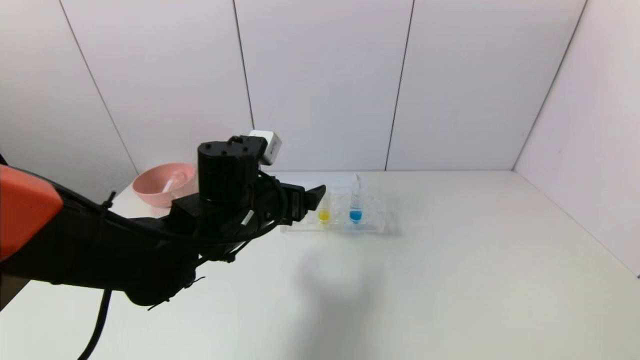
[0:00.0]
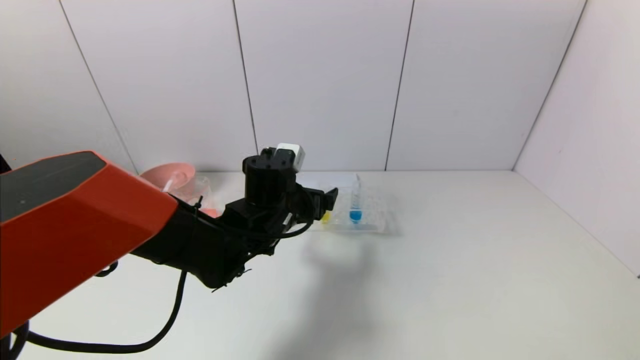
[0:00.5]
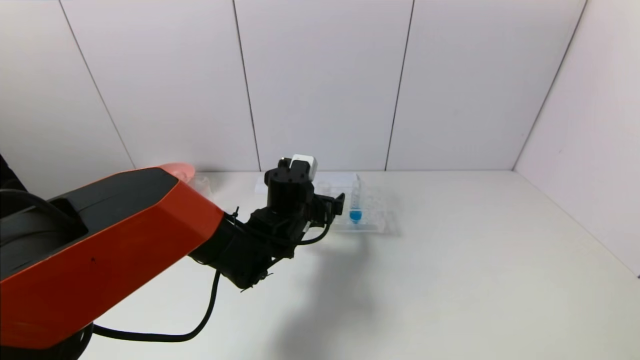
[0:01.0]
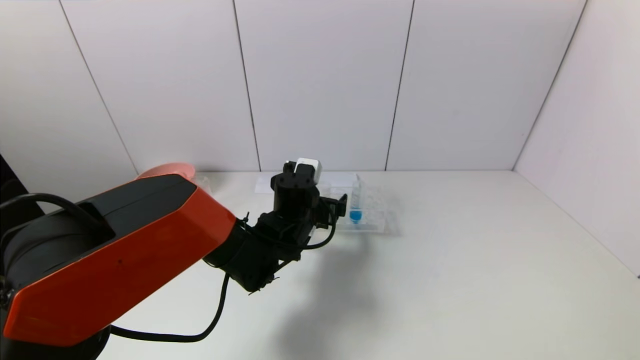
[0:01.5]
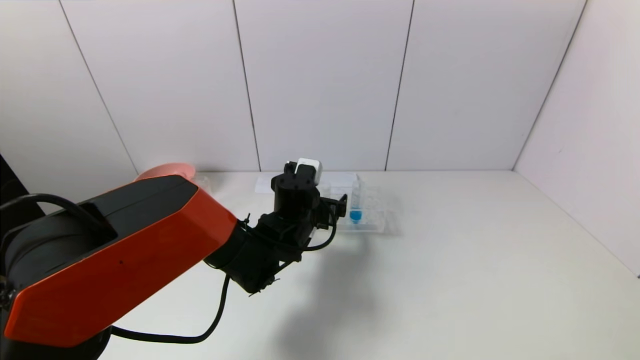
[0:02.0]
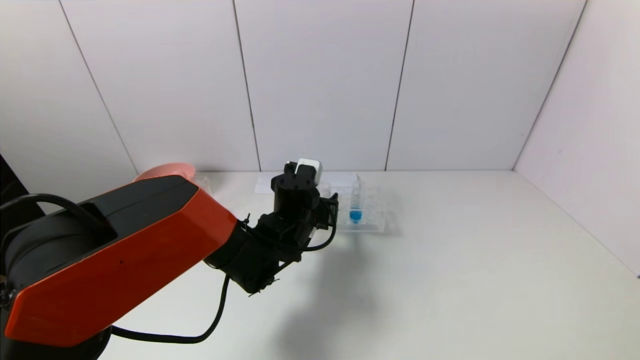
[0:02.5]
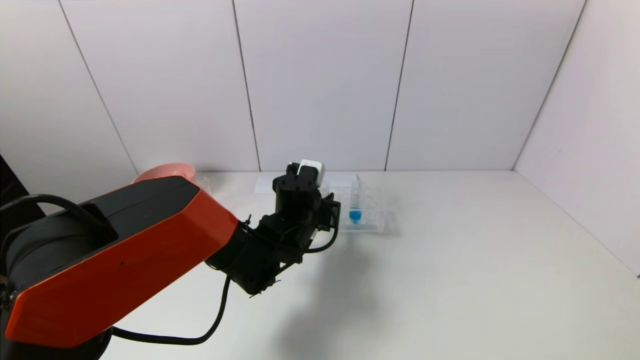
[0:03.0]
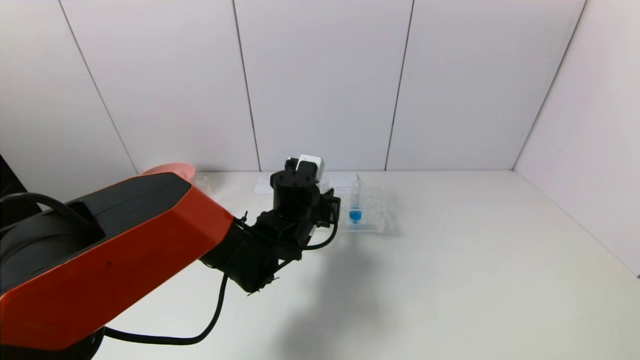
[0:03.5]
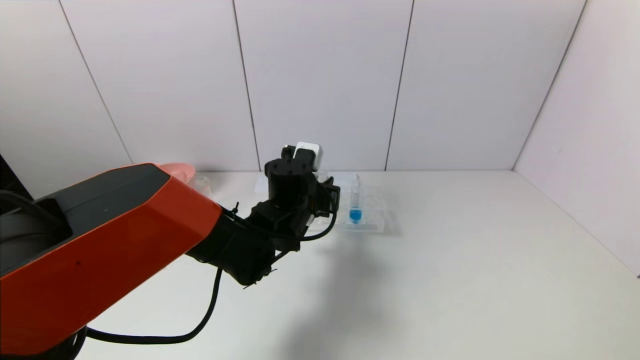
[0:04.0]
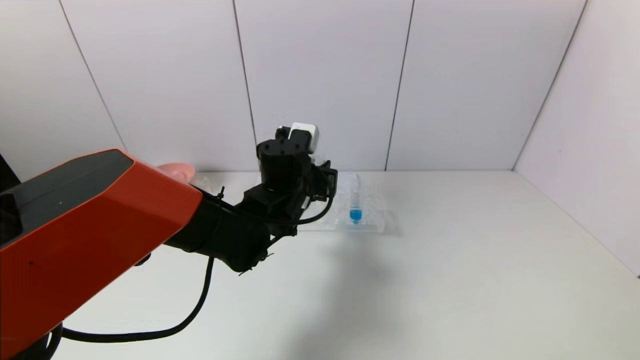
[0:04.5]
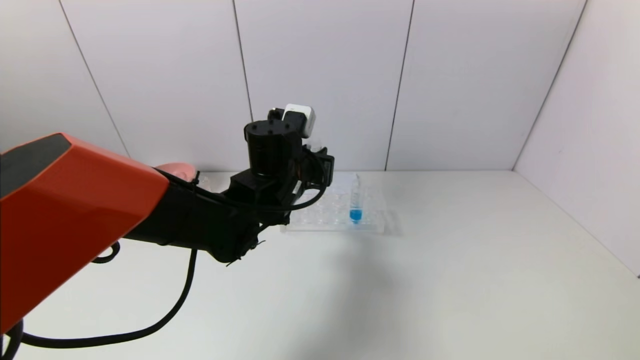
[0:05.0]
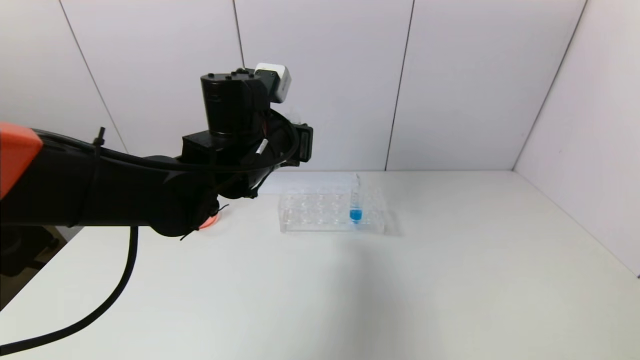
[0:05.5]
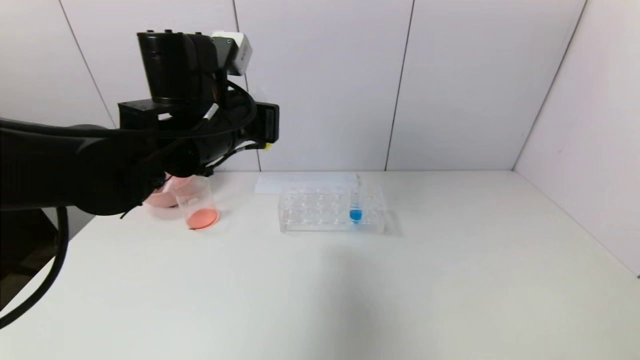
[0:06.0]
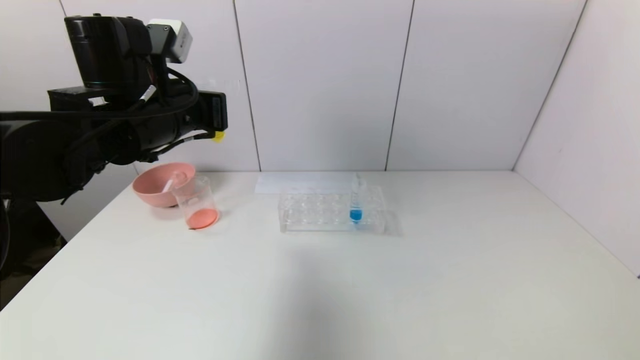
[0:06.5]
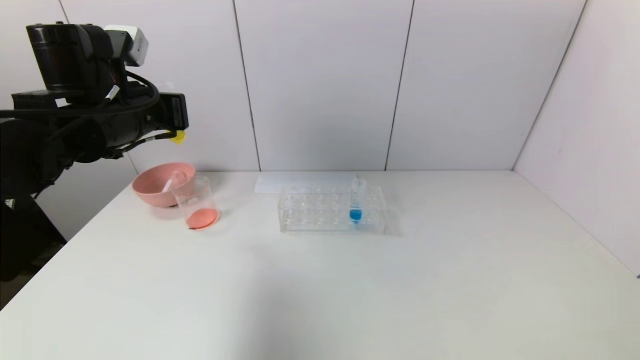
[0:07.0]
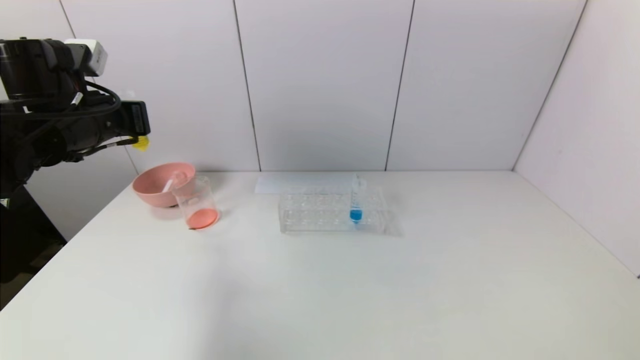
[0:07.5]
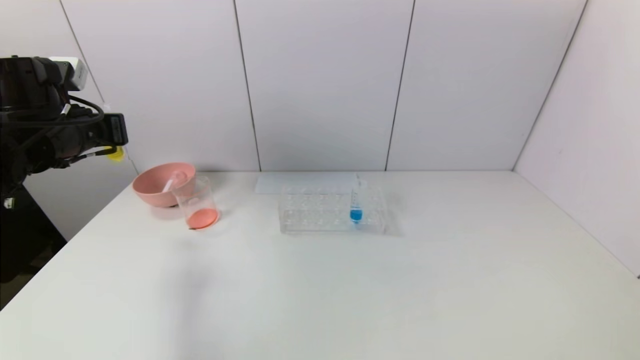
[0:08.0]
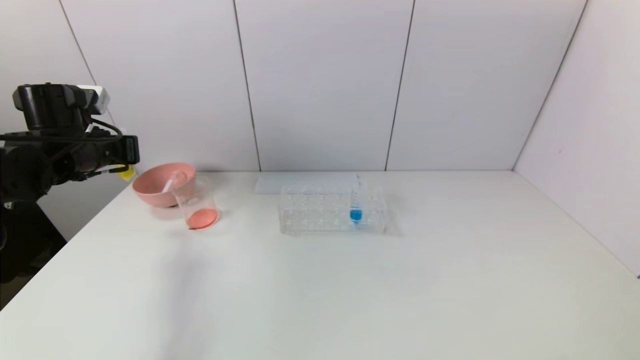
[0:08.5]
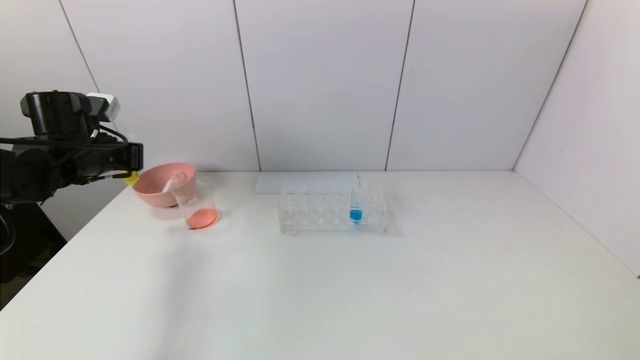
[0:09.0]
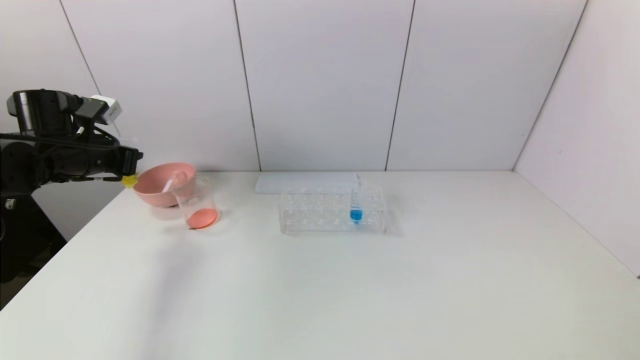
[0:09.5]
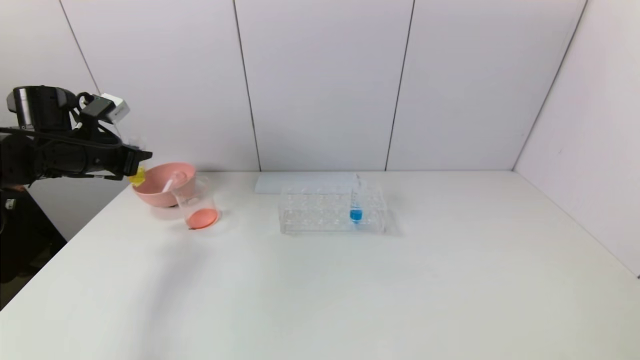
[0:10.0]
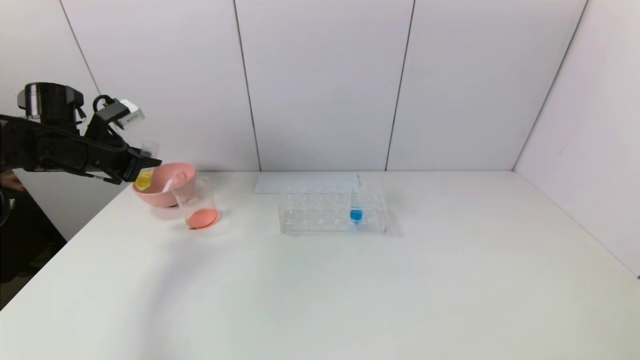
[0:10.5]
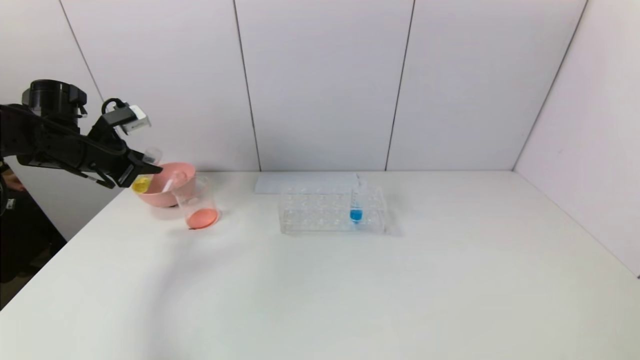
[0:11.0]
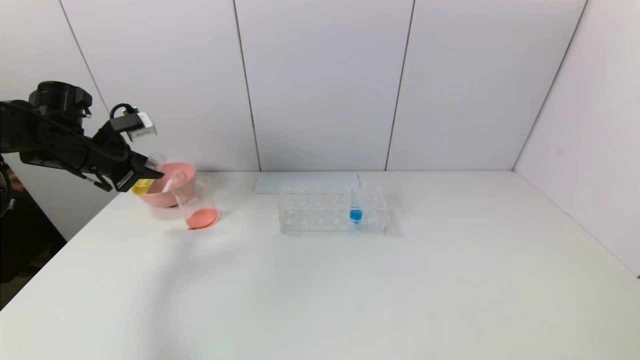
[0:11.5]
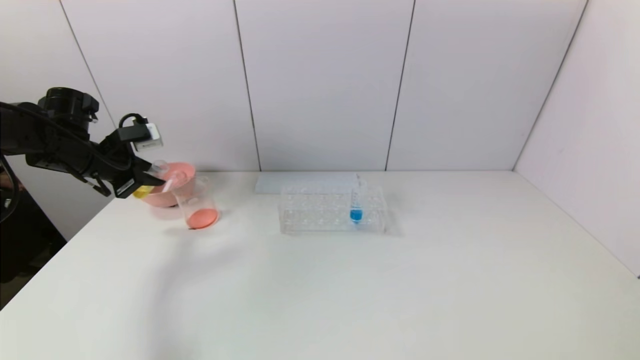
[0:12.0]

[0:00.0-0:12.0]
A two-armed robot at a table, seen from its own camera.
Task of the whole recording: pick up the test tube with yellow pigment and the test tube with red pigment by grippers and pour them into the beaker.
Step, 0:00.0 to 0:03.0: Grasp the yellow reagent with the left gripper.
0:00.0 to 0:02.0: The left gripper goes roughly 10 cm downward, forward and to the right.
0:02.0 to 0:04.0: The left gripper closes.
0:04.0 to 0:06.0: The left gripper shifts some 20 cm upward and to the left.
0:06.0 to 0:08.0: The left gripper goes approximately 20 cm to the left.
0:08.0 to 0:10.0: The left gripper shifts by approximately 5 cm.

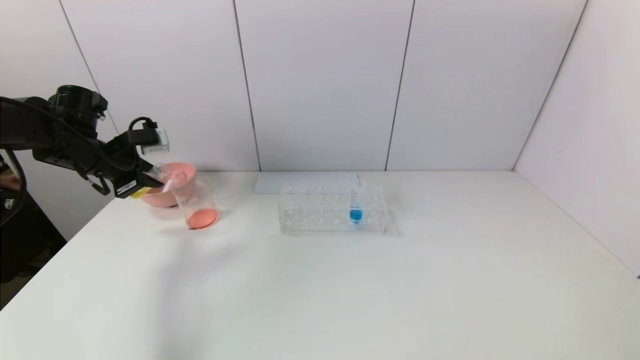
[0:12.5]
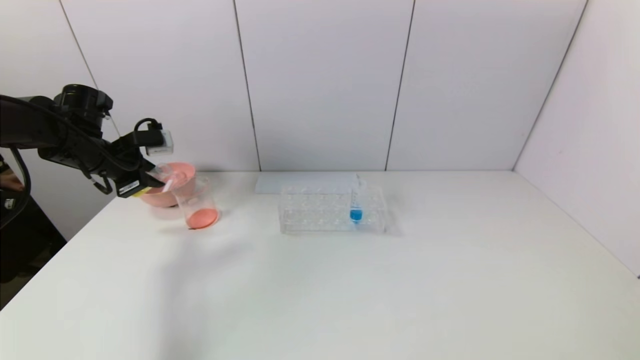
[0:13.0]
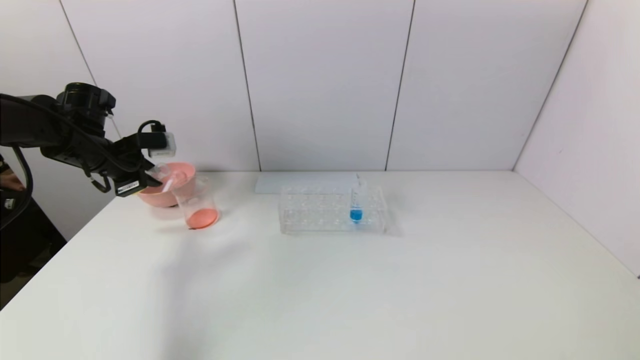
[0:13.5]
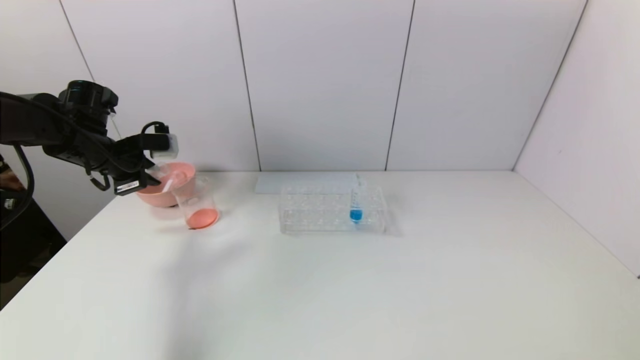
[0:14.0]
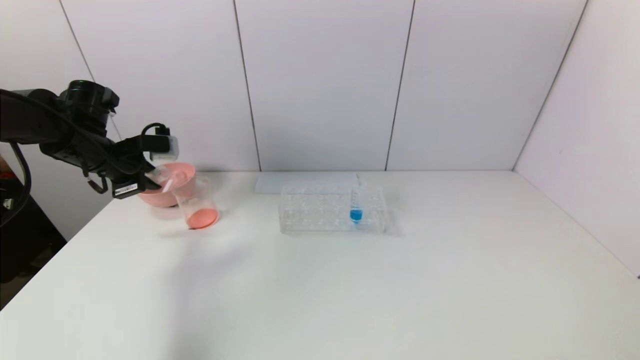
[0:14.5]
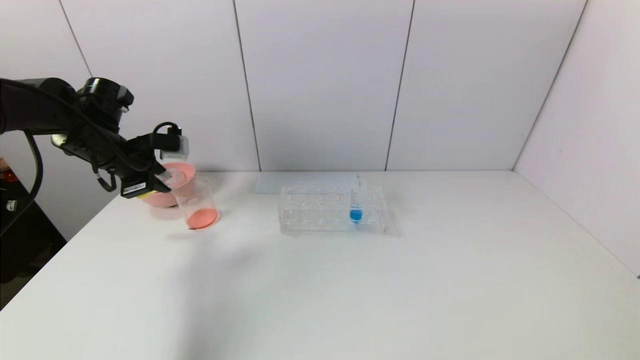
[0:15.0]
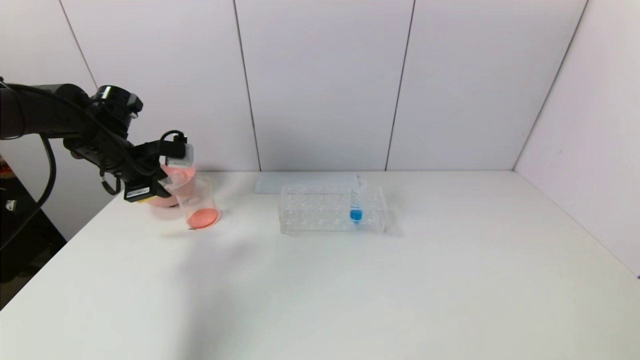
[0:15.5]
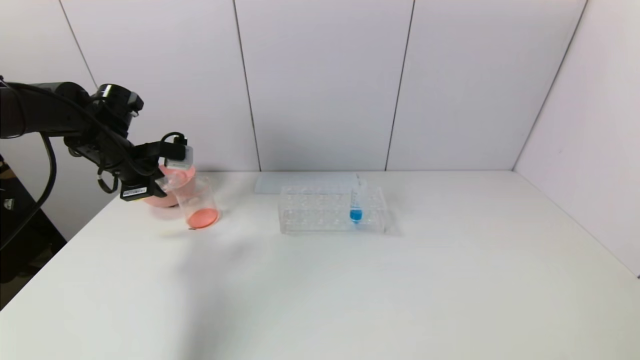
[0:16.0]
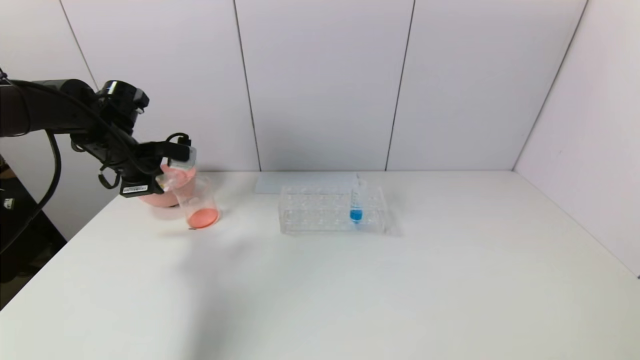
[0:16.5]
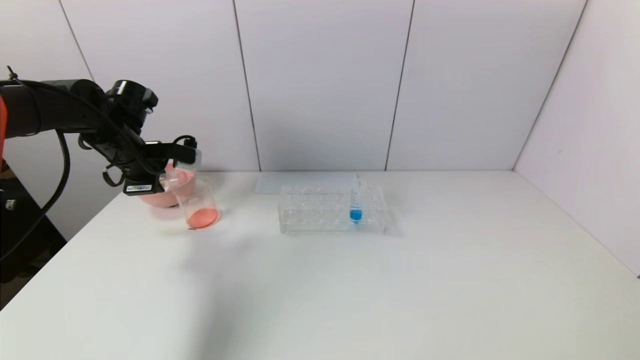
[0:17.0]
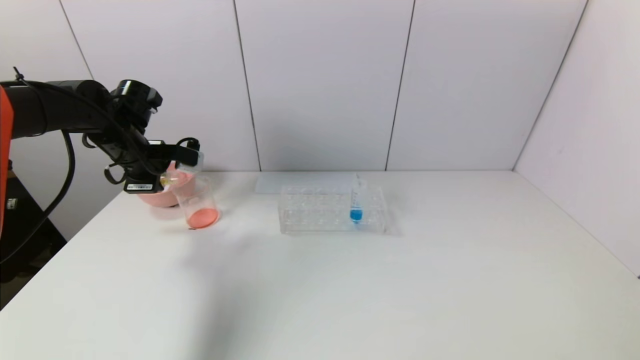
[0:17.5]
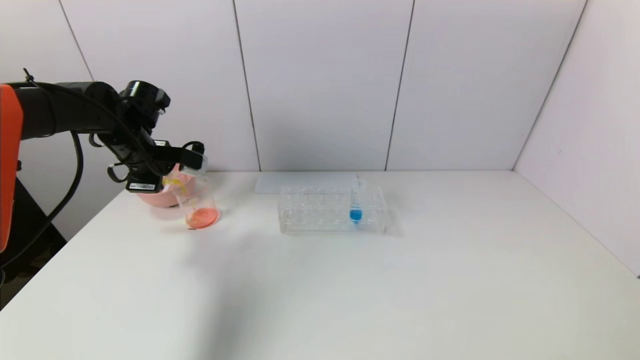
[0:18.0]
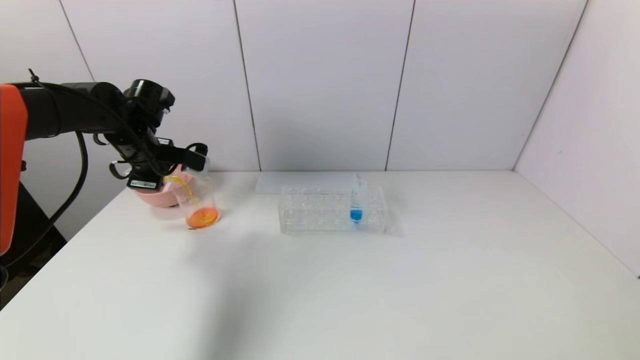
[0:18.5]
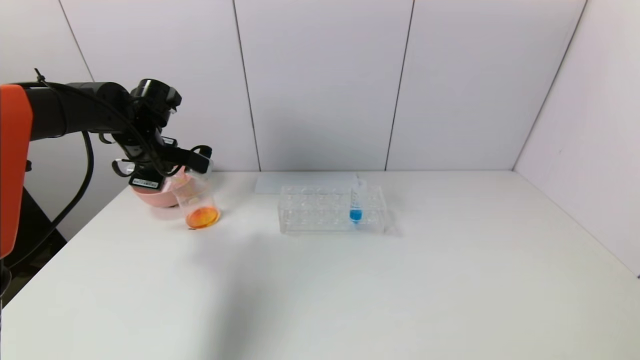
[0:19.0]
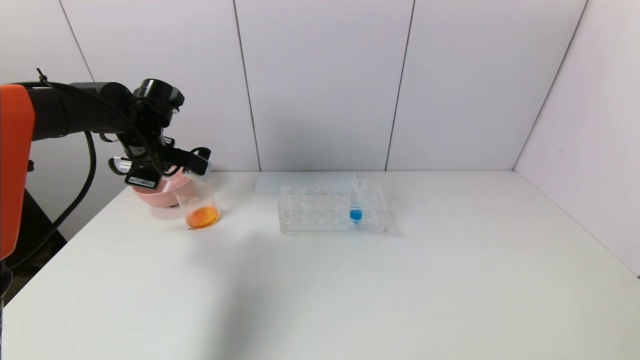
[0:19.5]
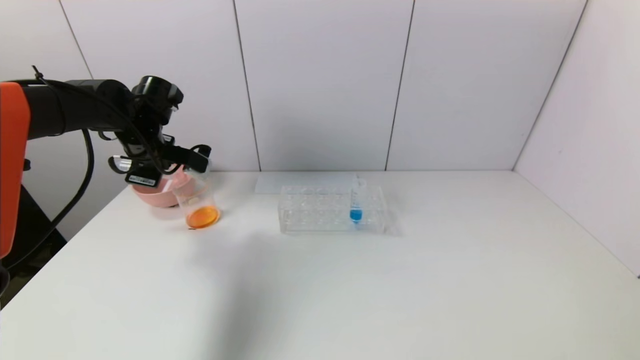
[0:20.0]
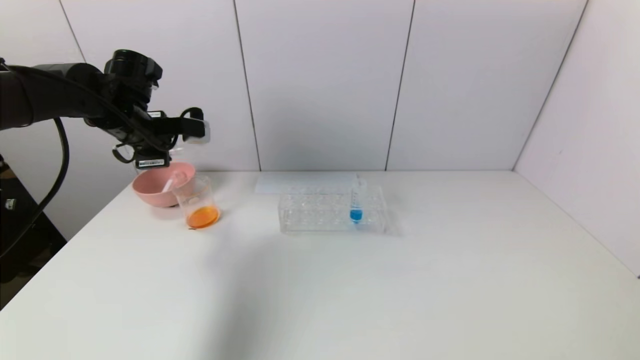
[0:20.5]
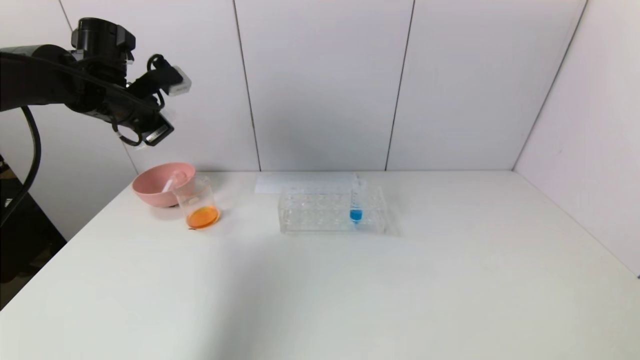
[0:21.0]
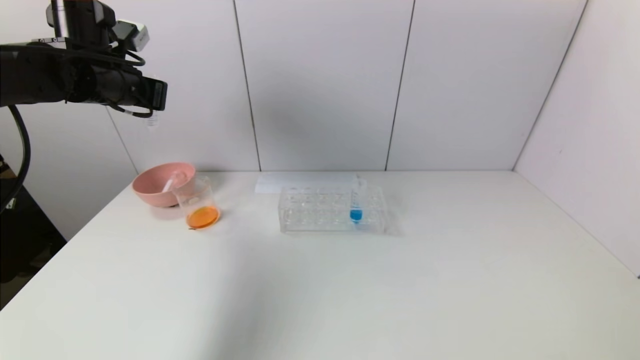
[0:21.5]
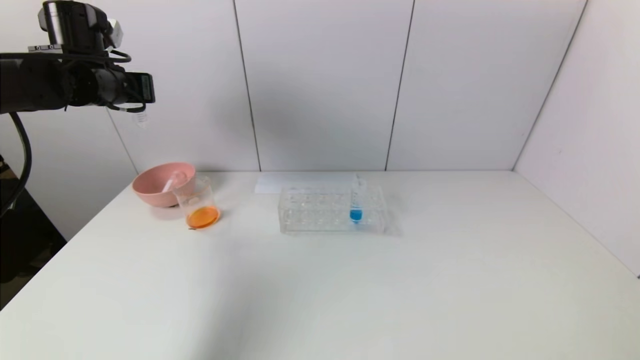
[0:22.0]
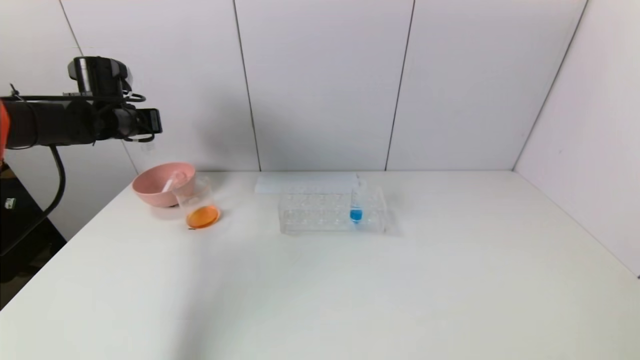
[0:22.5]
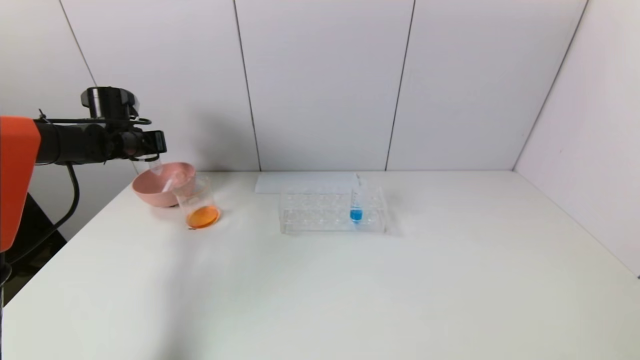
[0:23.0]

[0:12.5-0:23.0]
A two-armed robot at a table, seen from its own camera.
Task of the whole recording: pick up the test tube with yellow pigment and the test tube with red pigment by grippers and pour them into the beaker.
Step, 0:12.5 to 0:19.0: Pour the yellow reagent into the graduated cylinder with the left gripper.
0:12.5 to 0:14.5: There are only small adjustments of the grippers.
0:14.5 to 0:16.5: The grippers make only small movements.
0:19.0 to 0:21.0: The left gripper heads upward, covering about 10 cm.
0:21.0 to 0:23.0: The left gripper travels downward, to the left and forward by approximately 15 cm.
